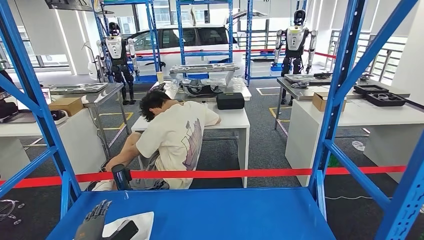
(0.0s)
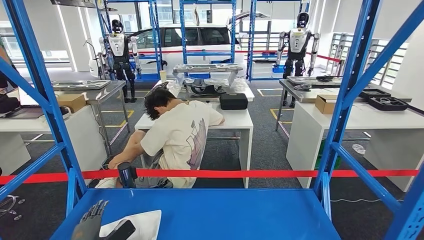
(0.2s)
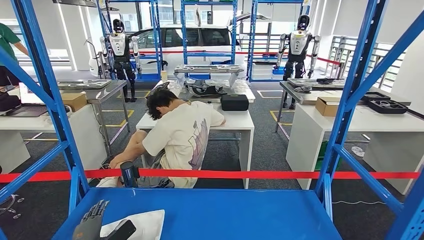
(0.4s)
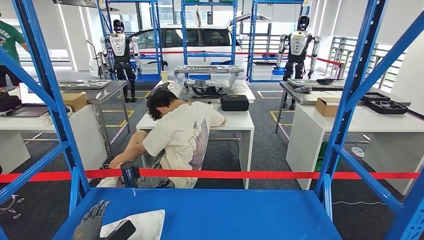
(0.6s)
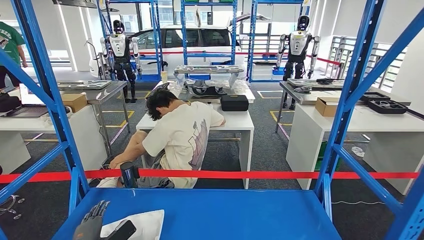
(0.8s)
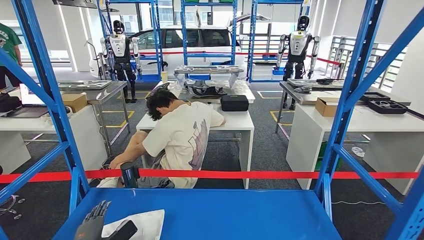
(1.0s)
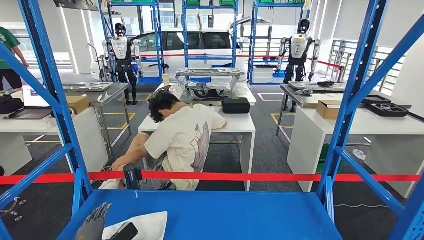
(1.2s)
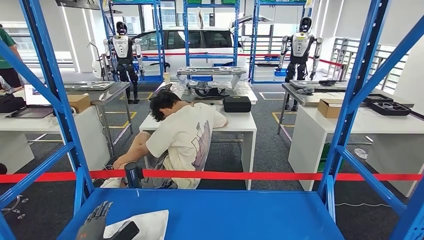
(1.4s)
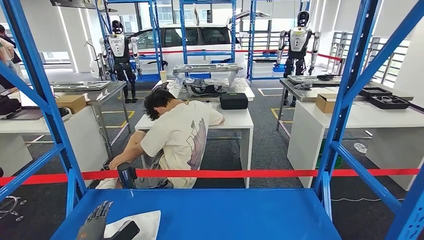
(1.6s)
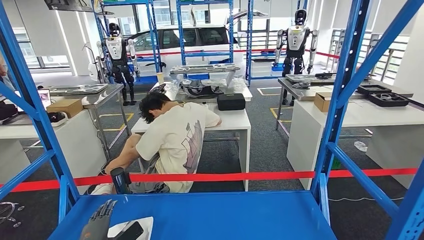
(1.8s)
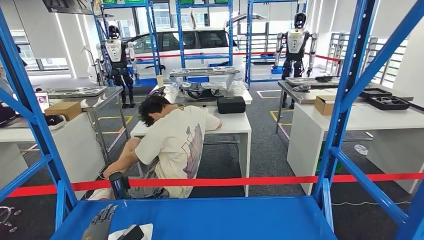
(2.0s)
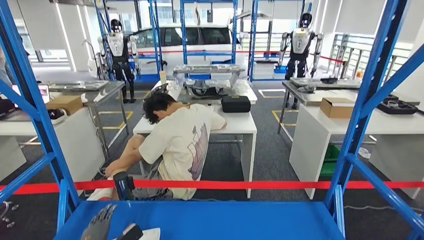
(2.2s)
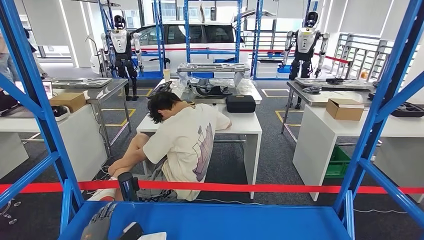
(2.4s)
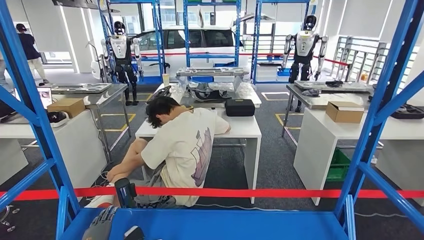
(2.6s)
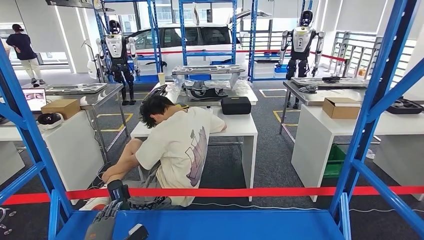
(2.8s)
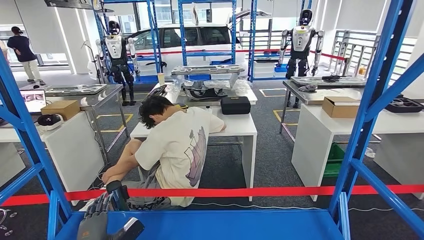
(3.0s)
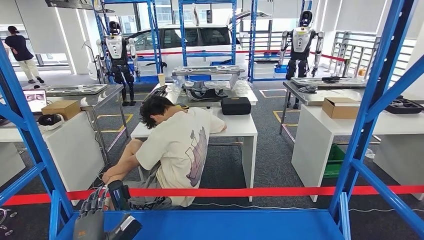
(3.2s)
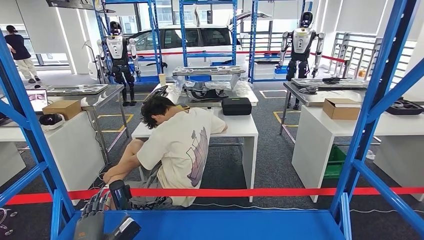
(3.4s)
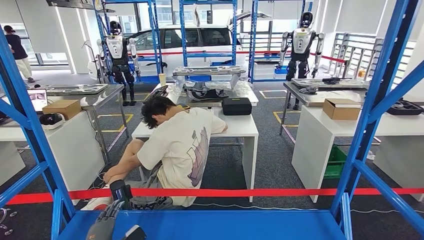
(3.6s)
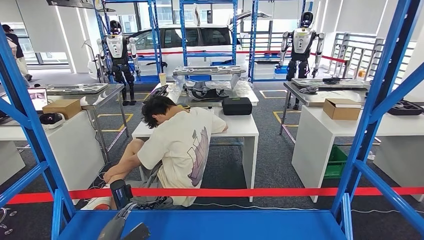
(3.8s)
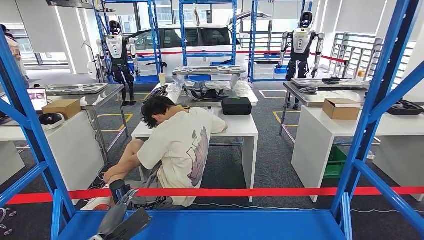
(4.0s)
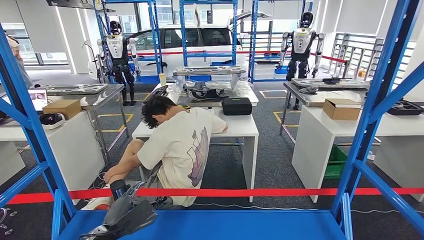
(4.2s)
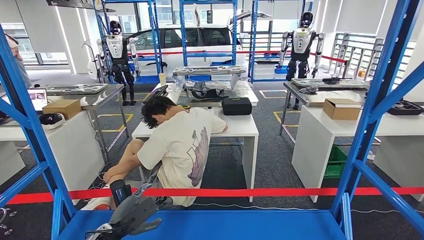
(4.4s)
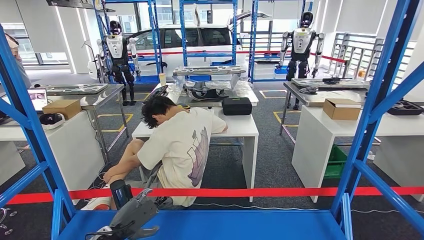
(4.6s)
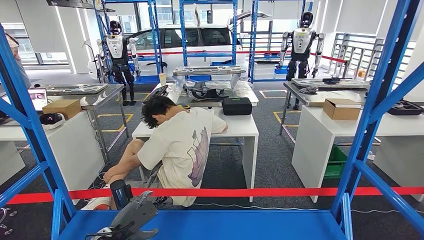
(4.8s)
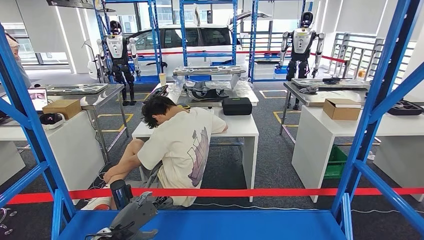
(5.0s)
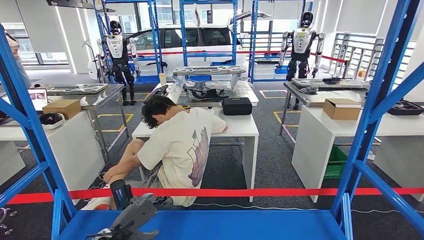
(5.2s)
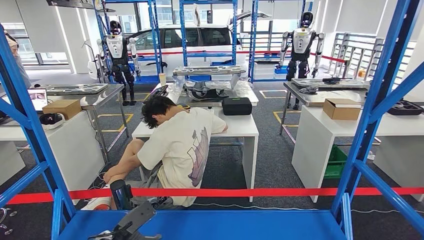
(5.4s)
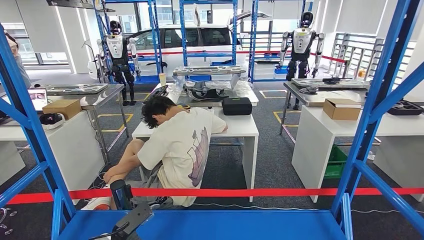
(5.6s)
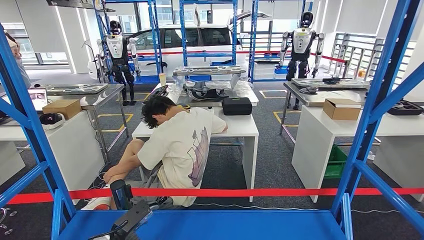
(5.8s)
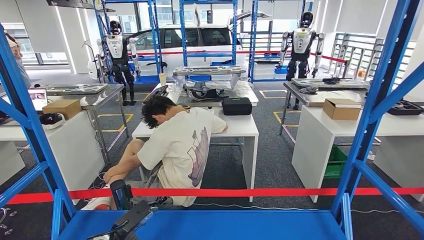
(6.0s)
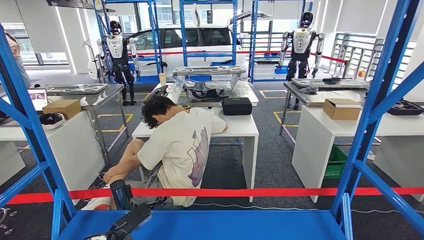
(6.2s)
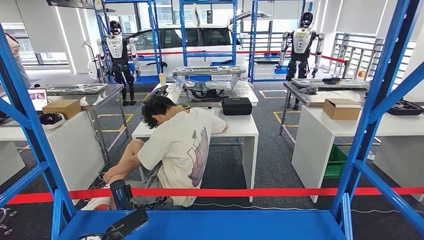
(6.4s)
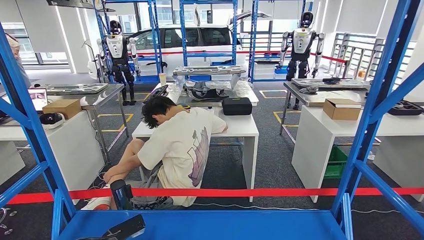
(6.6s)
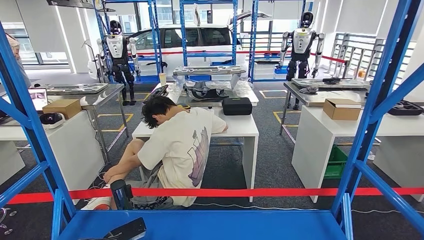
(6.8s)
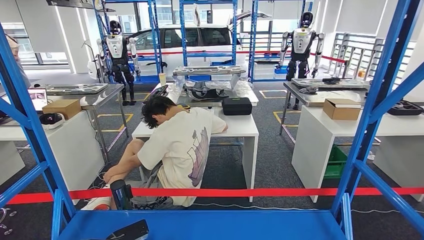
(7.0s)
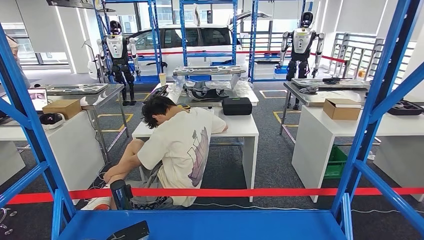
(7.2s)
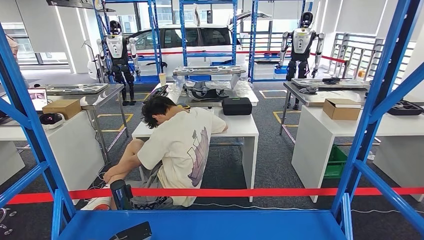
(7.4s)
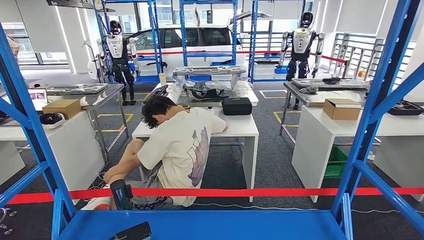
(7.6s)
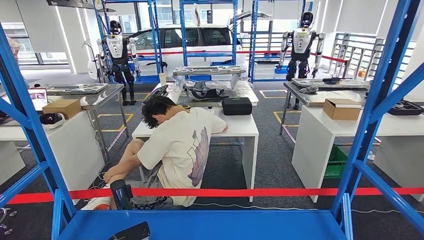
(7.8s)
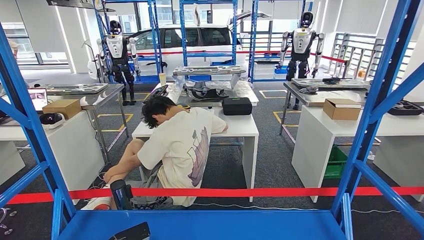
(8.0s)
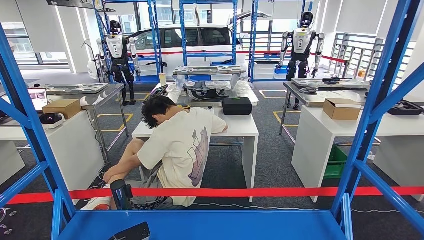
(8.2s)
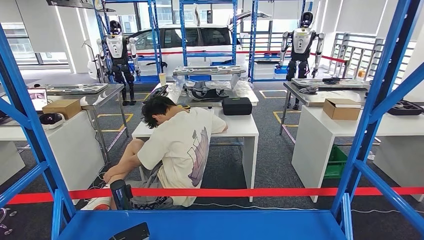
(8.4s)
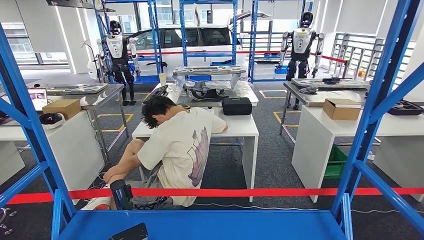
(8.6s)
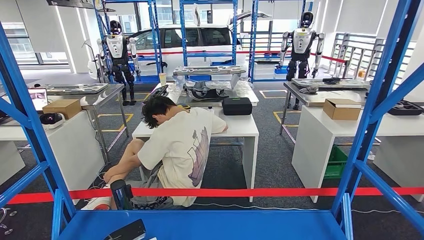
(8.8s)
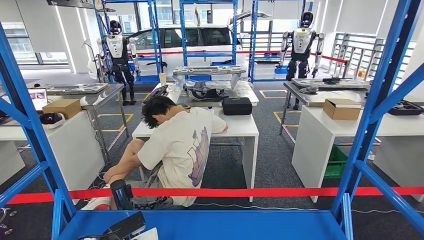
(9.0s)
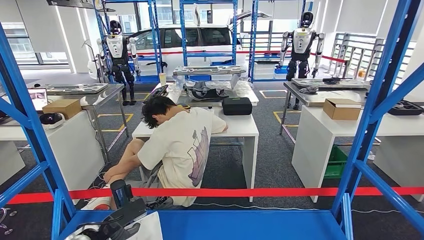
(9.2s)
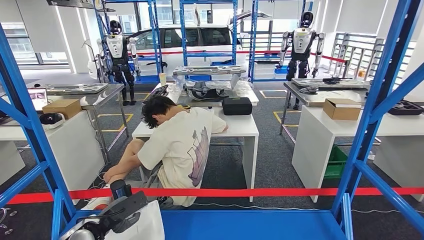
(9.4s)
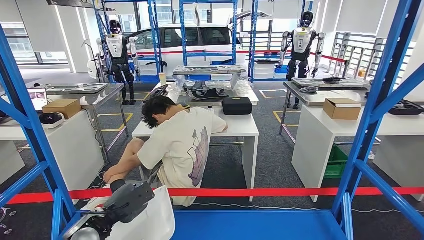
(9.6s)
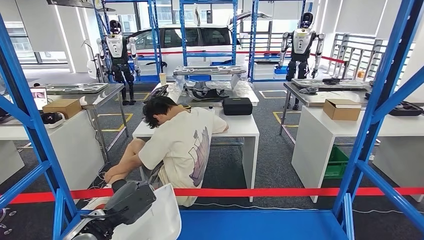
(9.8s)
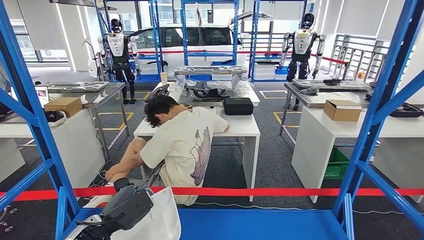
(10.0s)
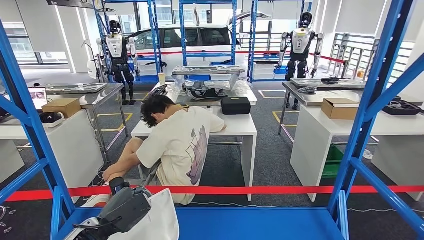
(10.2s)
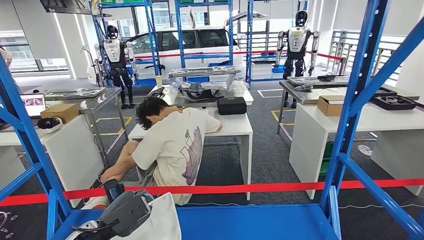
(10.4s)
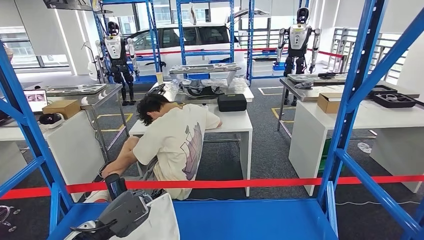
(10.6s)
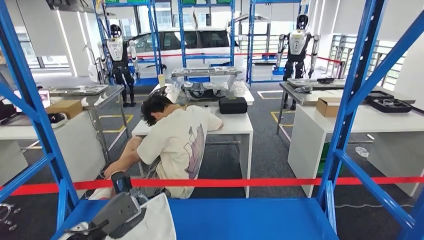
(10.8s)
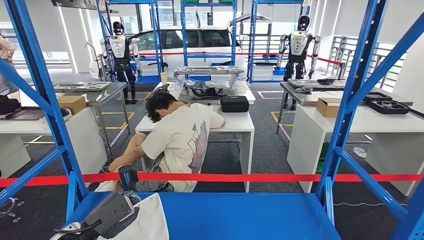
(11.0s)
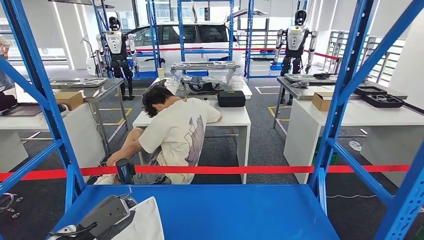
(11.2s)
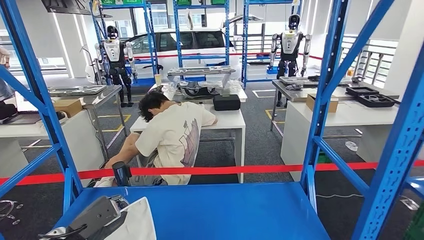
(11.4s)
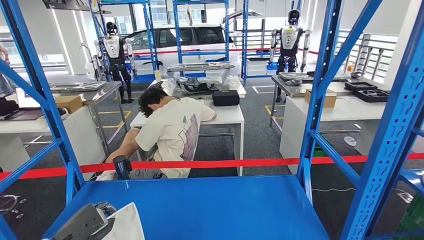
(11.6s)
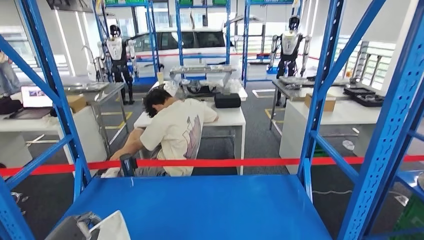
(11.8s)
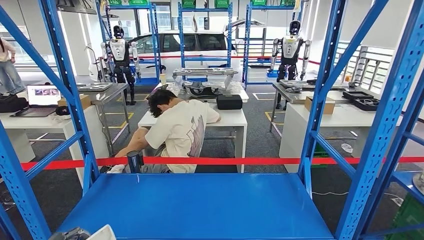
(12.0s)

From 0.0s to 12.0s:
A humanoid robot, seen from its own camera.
Step, from 0.0s to 10.6s: Pick up the small component from the shelf.
From 6.0s to 7.6s: The left hand is displaced to the left by some 5 cm.

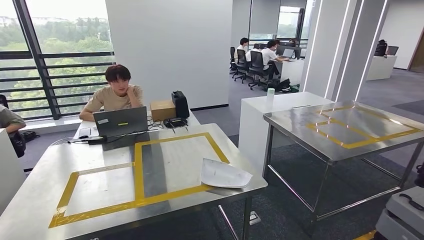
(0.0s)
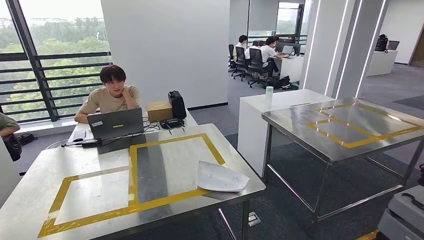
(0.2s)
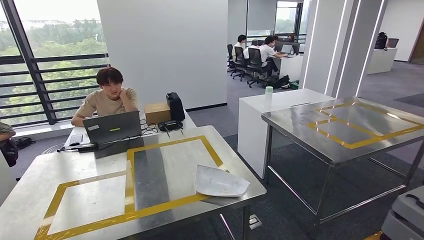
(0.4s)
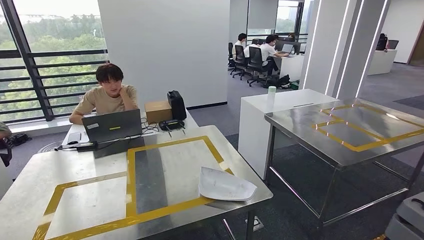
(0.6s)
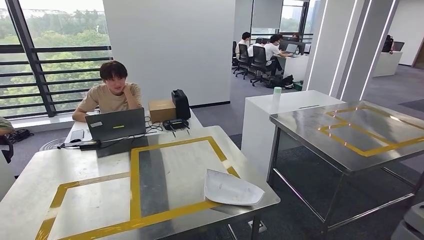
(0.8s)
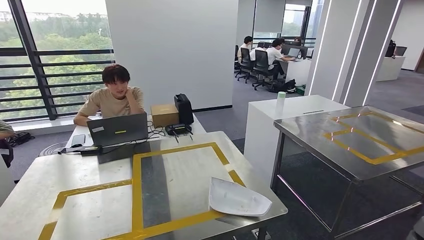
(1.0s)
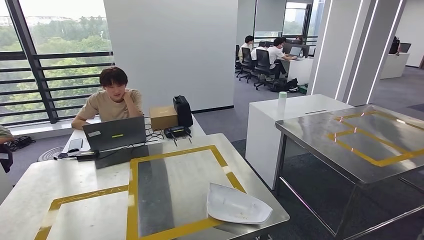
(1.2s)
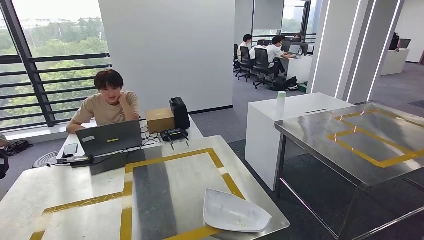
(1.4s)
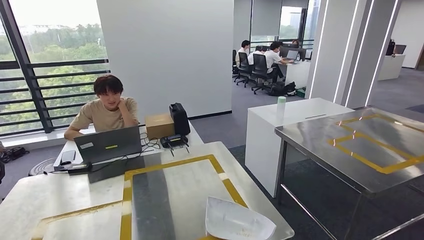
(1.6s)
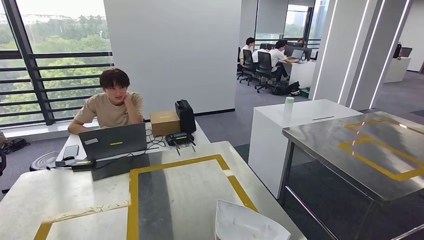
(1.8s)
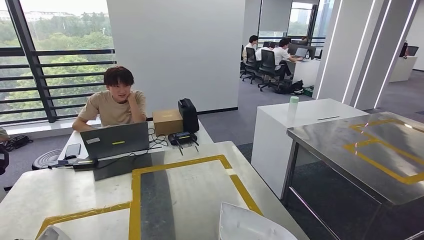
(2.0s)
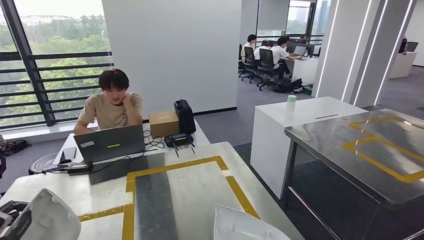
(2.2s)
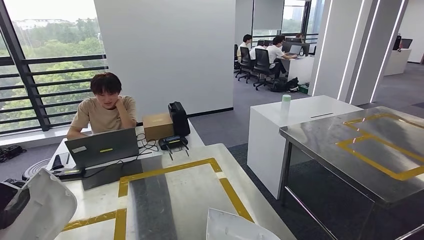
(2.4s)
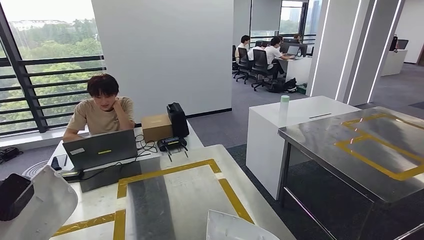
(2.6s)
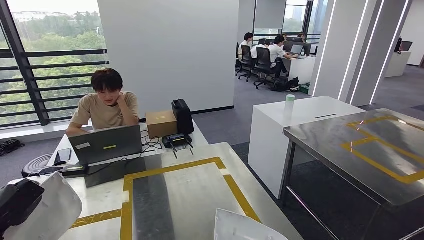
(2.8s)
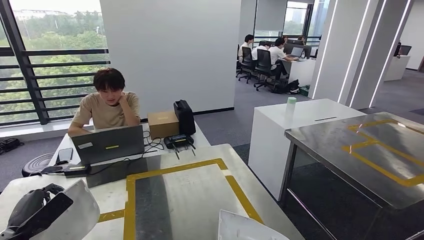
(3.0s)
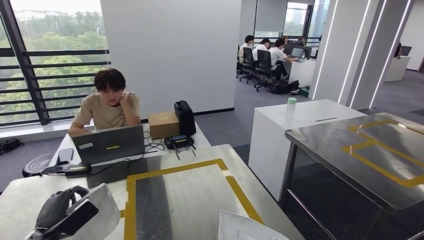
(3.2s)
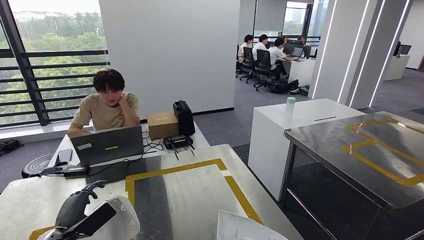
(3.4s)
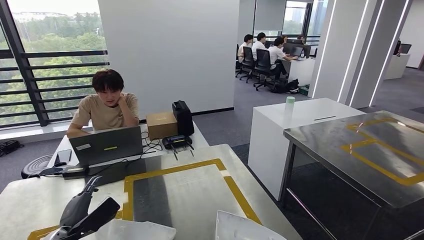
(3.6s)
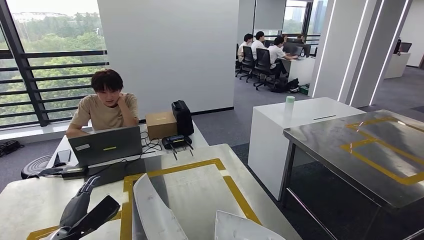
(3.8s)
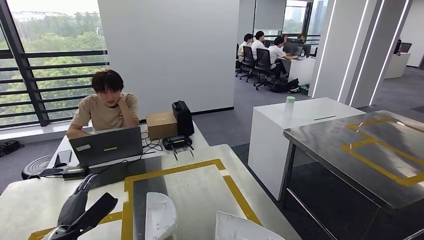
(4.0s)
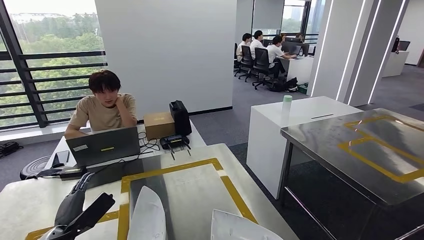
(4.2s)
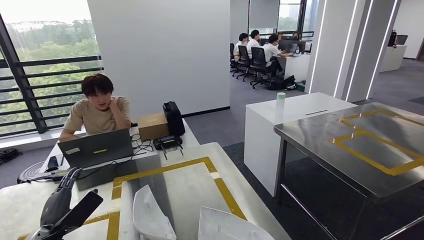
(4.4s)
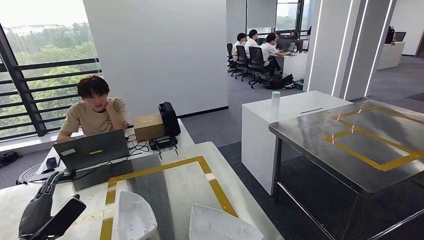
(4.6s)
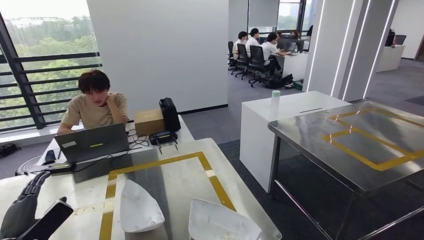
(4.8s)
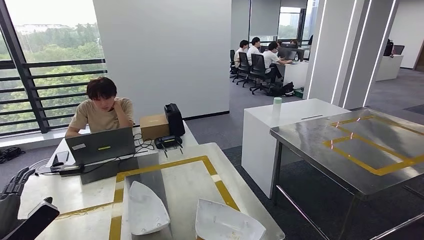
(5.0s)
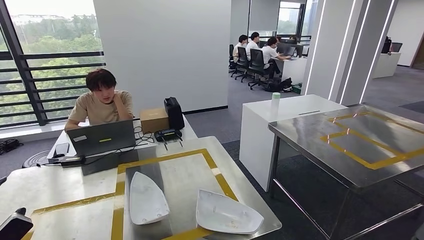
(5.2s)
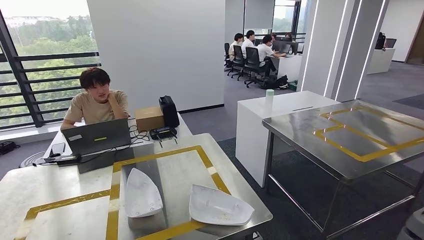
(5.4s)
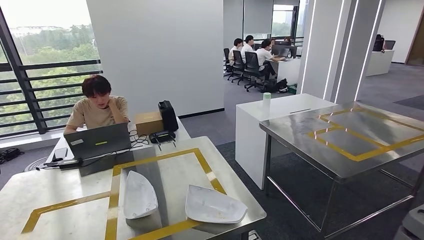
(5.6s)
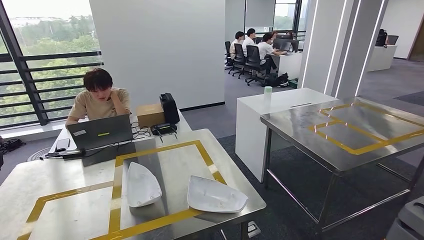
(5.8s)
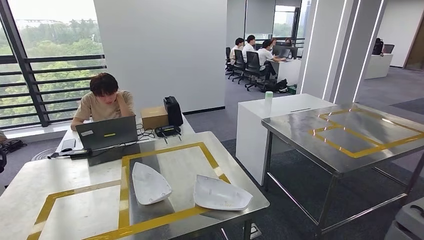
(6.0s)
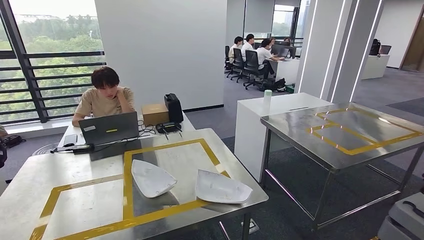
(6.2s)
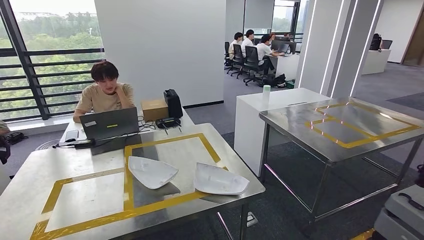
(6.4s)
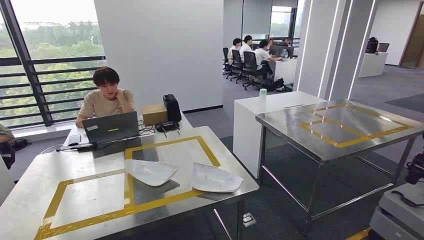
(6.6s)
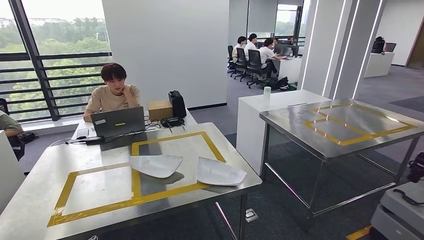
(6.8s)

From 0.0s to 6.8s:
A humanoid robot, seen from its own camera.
Step, from 0.0s to 2.2s: Move the small component to the workbench.
Step, from 2.6s to 5.4s: Insert the small component into the corresponding slot on the workbench.
From 2.8s to 4.0s: The left hand shifts about 15 cm to the right.
